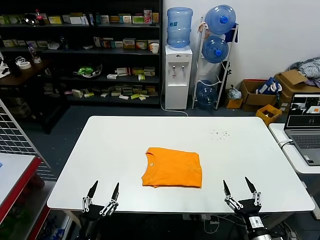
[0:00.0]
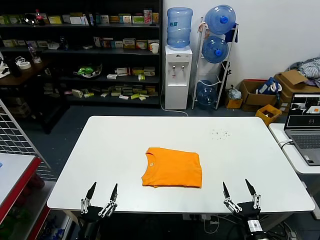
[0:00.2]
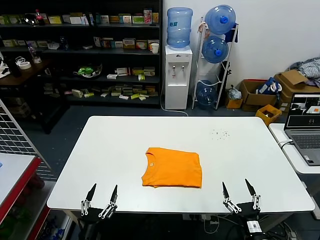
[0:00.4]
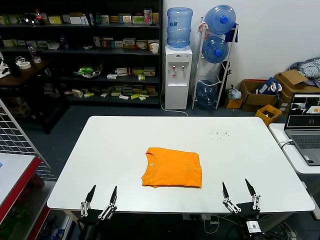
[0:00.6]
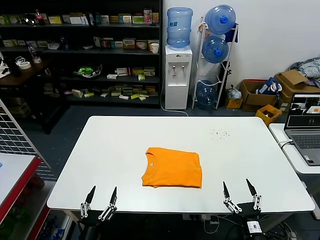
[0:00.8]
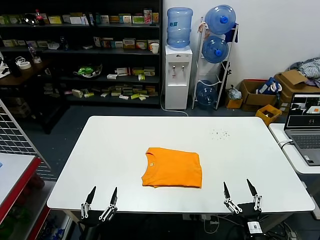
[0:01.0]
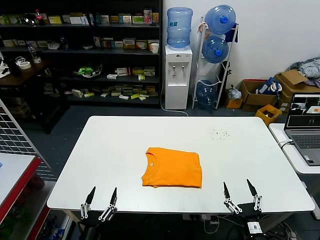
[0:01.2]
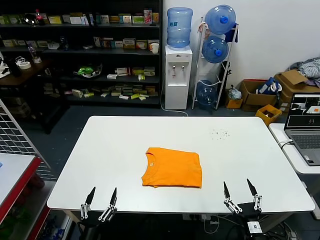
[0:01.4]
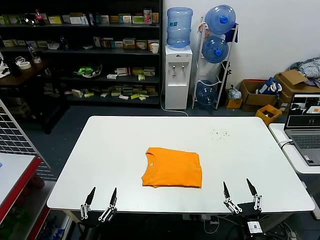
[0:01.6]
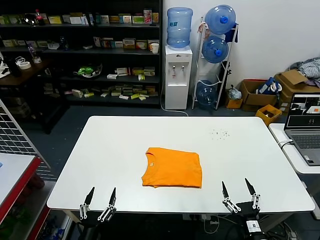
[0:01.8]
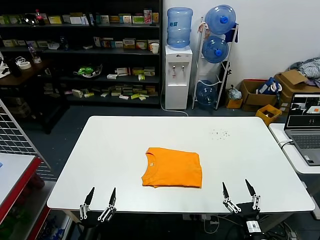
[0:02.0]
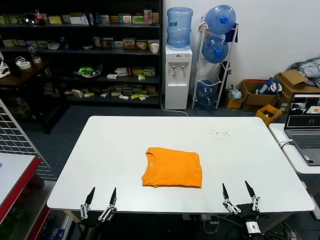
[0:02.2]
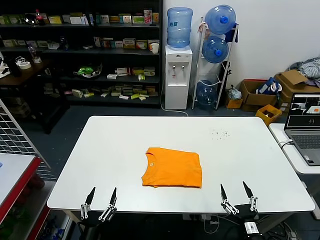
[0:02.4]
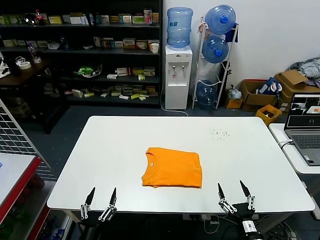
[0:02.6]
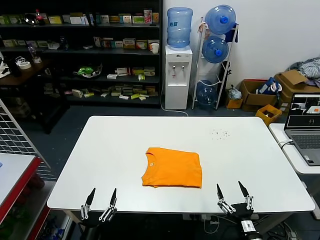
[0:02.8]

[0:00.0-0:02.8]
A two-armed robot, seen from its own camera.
Task of the whole recording: fold and organize the clothes.
0:00.0 to 0:02.8: The grippers move only a little.

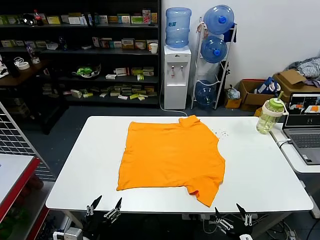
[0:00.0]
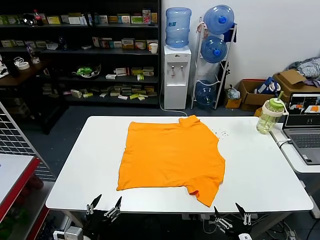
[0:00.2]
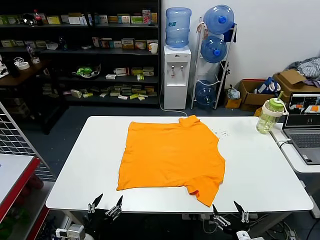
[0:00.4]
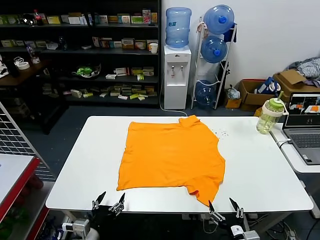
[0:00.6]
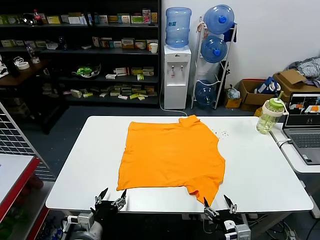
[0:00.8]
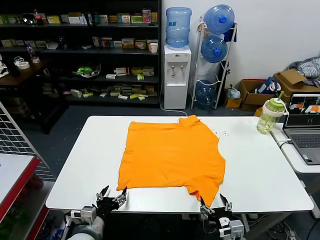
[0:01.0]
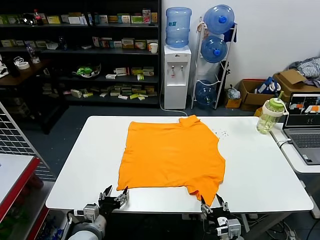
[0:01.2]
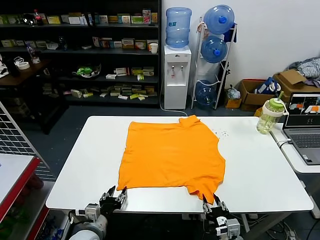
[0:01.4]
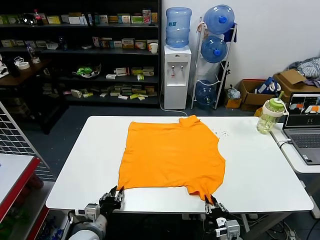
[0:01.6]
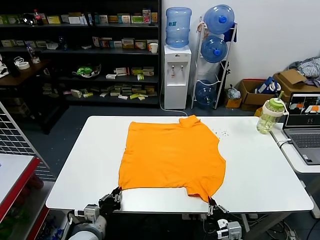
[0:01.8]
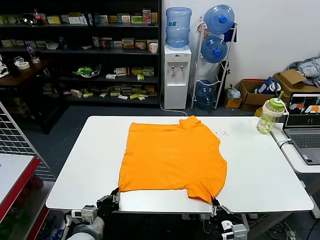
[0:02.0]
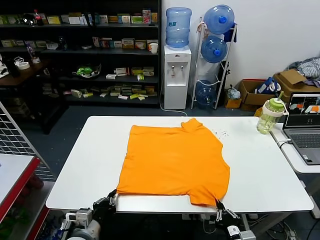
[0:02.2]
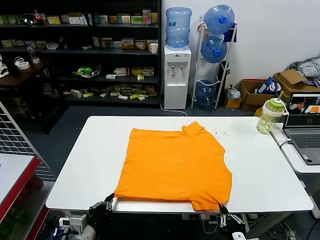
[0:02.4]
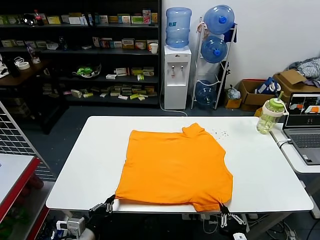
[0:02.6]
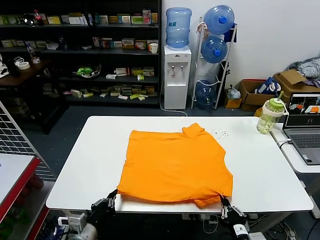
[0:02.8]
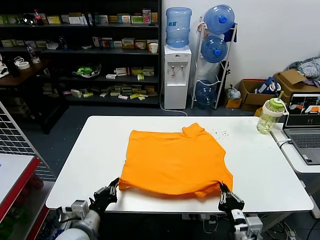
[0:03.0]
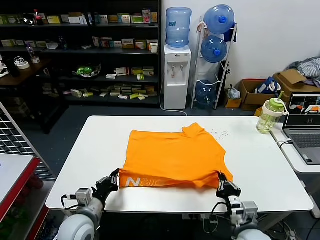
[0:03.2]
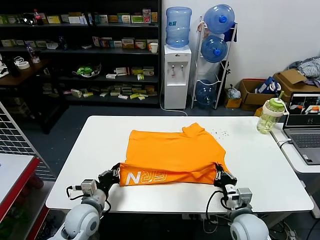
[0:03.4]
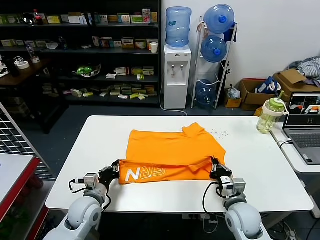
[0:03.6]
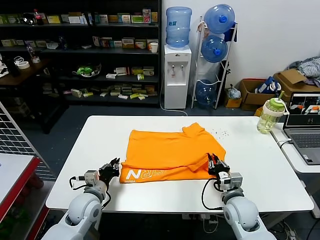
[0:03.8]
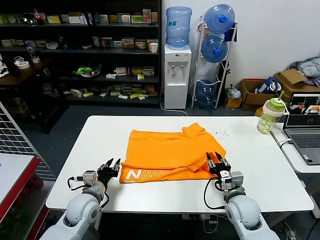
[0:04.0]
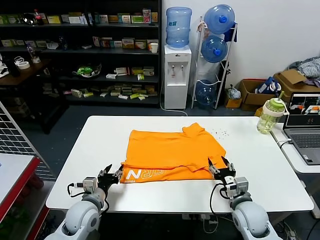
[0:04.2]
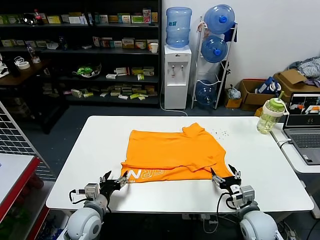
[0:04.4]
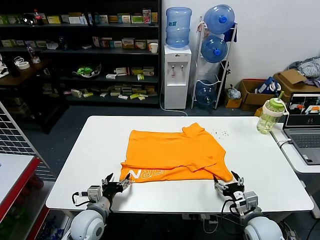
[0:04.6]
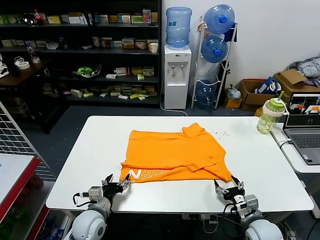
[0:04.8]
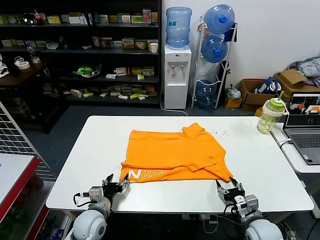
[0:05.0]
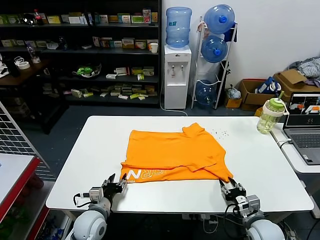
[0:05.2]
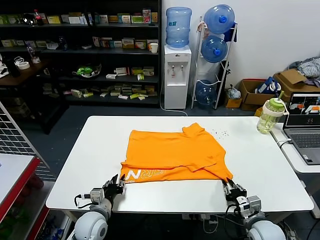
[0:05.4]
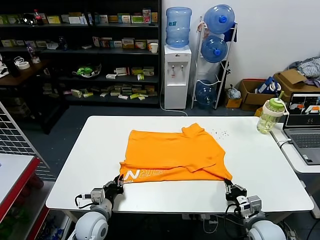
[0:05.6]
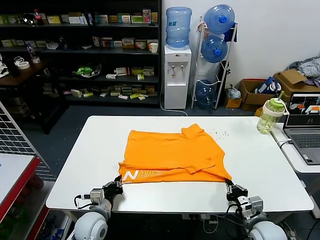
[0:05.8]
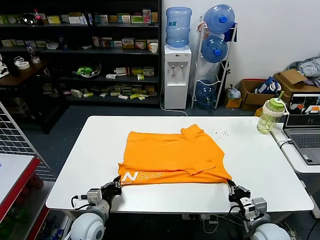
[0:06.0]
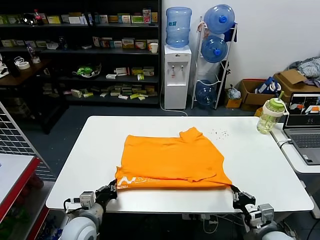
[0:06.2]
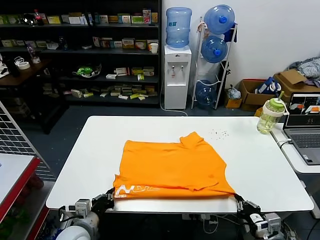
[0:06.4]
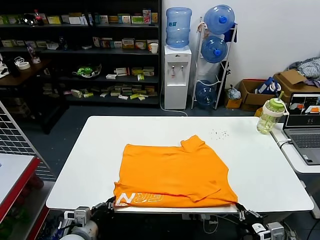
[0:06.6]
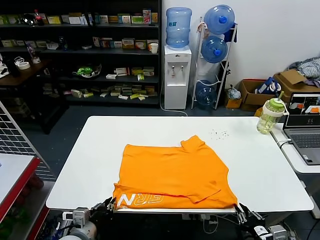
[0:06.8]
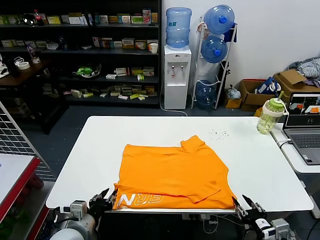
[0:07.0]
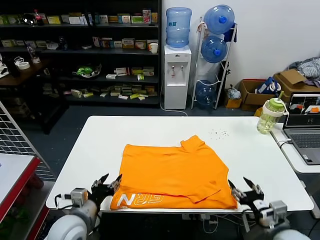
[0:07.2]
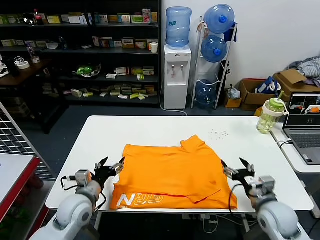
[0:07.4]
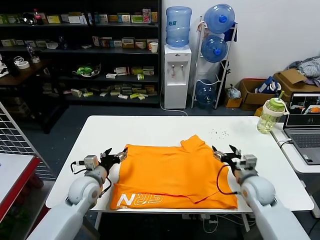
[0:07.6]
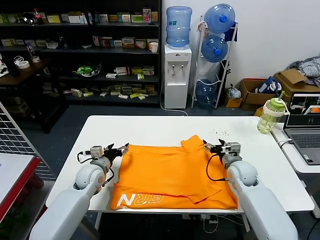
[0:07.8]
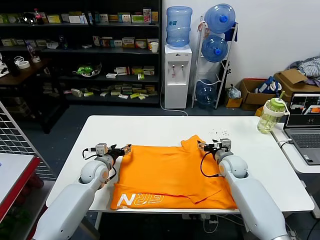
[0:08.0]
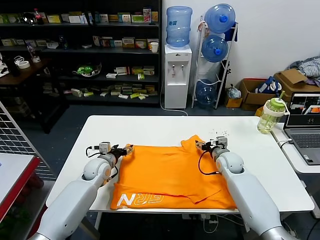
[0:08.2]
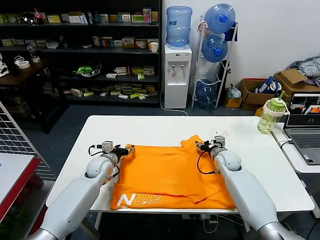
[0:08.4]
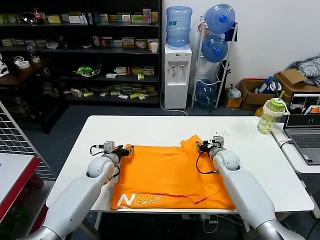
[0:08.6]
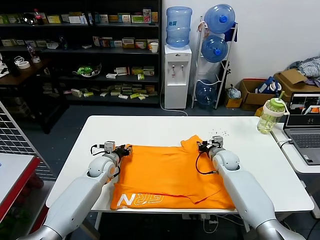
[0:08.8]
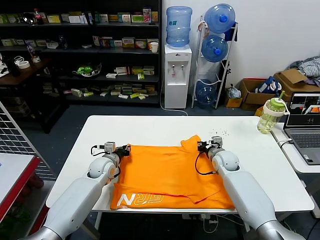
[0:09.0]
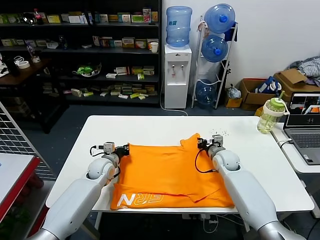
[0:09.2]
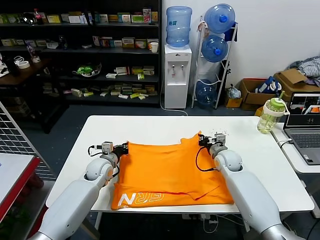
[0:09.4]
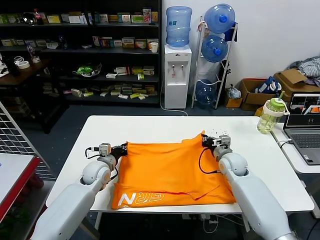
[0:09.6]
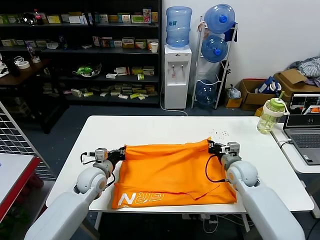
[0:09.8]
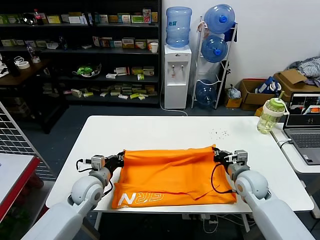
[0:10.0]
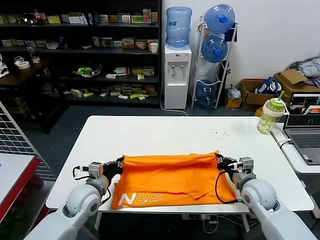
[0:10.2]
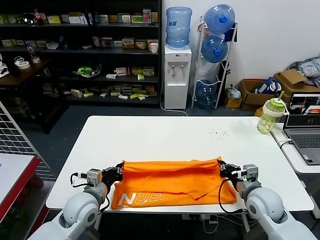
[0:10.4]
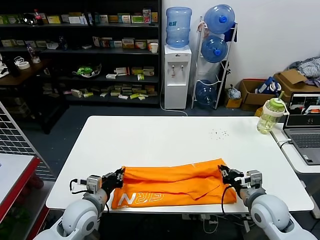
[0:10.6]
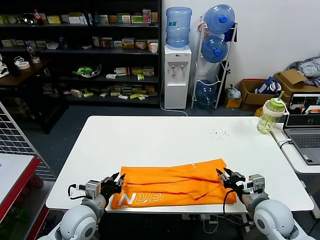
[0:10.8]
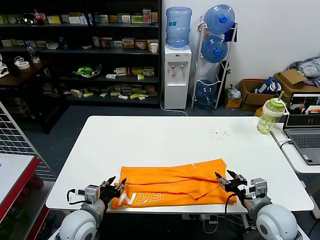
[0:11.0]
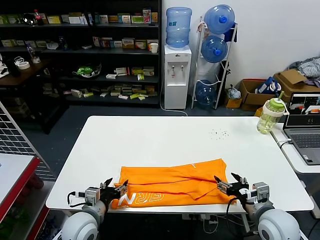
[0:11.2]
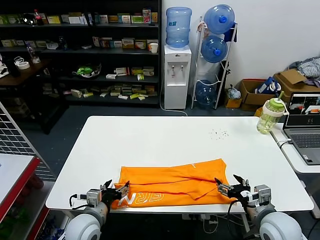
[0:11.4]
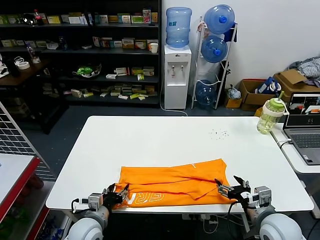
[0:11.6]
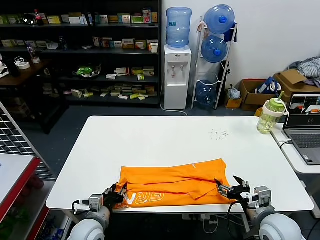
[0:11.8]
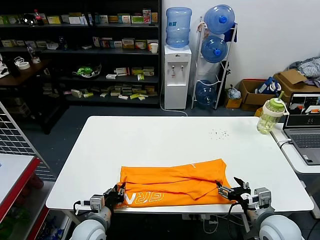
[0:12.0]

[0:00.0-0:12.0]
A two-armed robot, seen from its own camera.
Task of the whole recording: fold and organize the clothes.
Step, 0:00.0 to 0:01.8: use both grippers simultaneously to clamp the lower edge of the clothing fabric.
Step, 0:02.0 to 0:04.0: use both grippers to drag the lower edge of the fabric forward and fold it over the upper edge.
Step, 0:04.2 to 0:06.8: Drag the clothes downward with both gripper.
Step, 0:07.0 to 0:09.0: use both grippers simultaneously to clamp the upper edge of the clothing fabric.
Step, 0:09.4 to 0:10.6: use both grippers to drag the upper edge of the fabric backward and fold it over the lower edge.
0:01.6 to 0:03.0: Both grippers move upward, about 5 cm. The left gripper closes up. The right gripper travels backward and back again, about 5 cm each way.
0:03.0 to 0:04.4: The left gripper travels forward by about 5 cm, and opens its fingers; the right gripper goes approximately 10 cm forward and to the right, and opens up.
0:04.4 to 0:06.0: The left gripper closes. The right gripper closes up.
0:06.0 to 0:07.6: The right gripper moves forward, approximately 15 cm, and opens its fingers. Meanwhile the left gripper shifts some 10 cm forward and upward, and opens up.
0:07.6 to 0:09.0: Both grippers travel together forward, about 10 cm. The right gripper closes its fingers. Meanwhile the left gripper closes up.
0:09.0 to 0:10.4: Both grippers travel together backward, some 20 cm.
0:10.4 to 0:12.0: The left gripper heads downward and backward, covering roughly 10 cm, and opens, then closes again; the right gripper travels backward by roughly 10 cm, and opens its fingers.

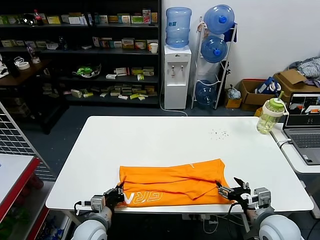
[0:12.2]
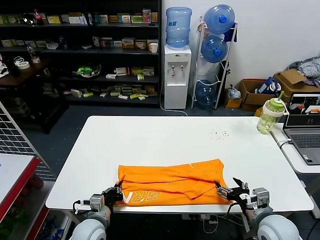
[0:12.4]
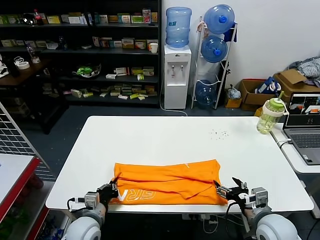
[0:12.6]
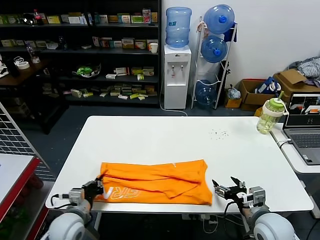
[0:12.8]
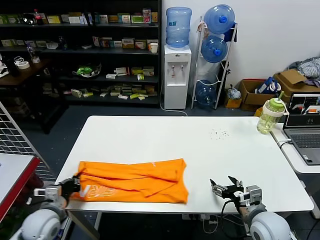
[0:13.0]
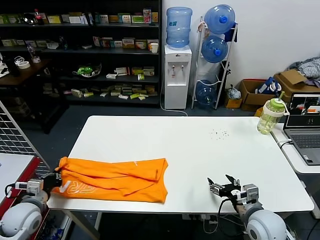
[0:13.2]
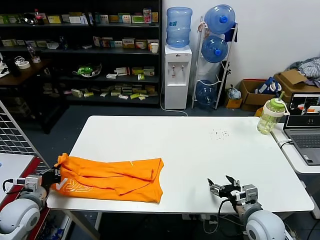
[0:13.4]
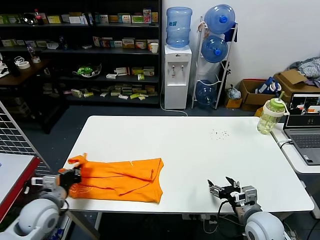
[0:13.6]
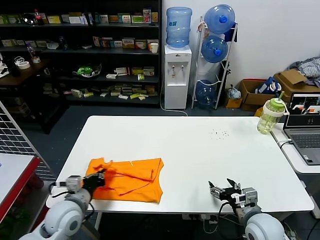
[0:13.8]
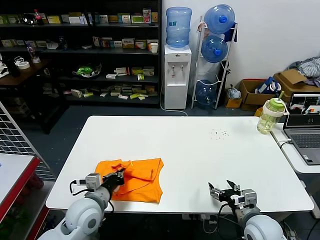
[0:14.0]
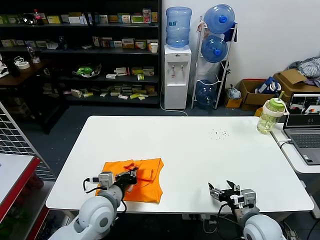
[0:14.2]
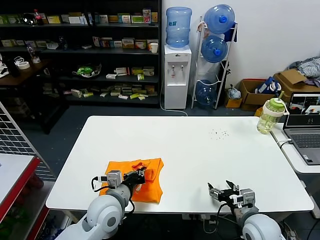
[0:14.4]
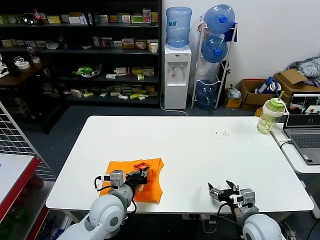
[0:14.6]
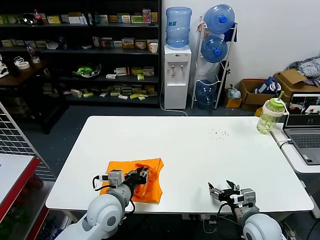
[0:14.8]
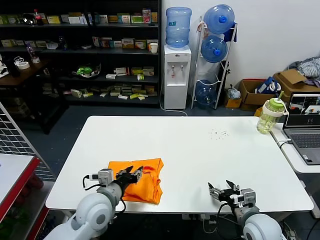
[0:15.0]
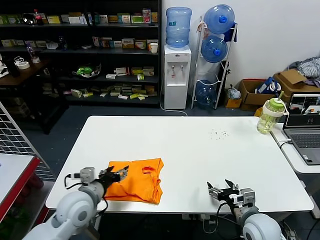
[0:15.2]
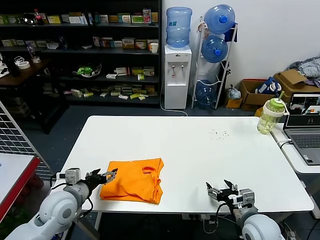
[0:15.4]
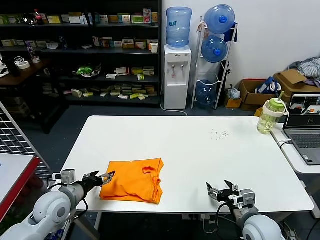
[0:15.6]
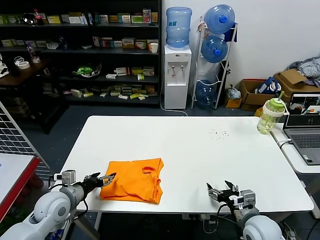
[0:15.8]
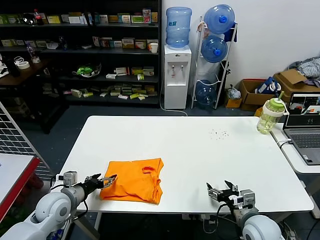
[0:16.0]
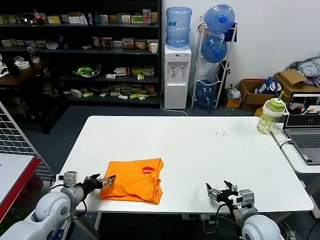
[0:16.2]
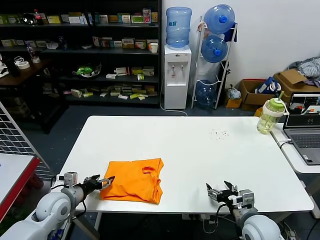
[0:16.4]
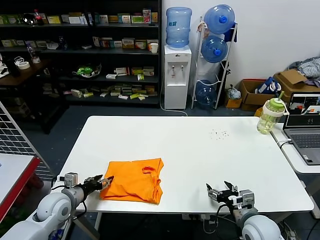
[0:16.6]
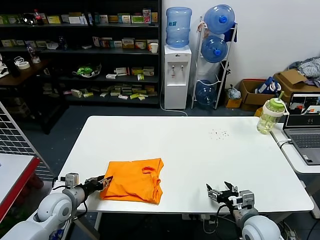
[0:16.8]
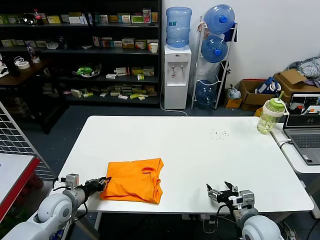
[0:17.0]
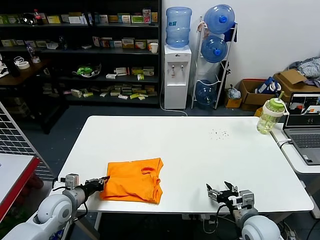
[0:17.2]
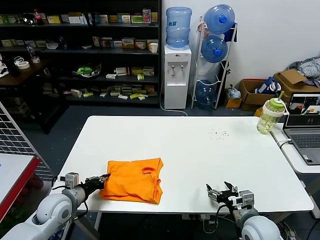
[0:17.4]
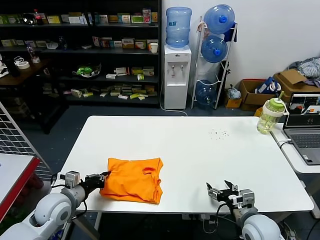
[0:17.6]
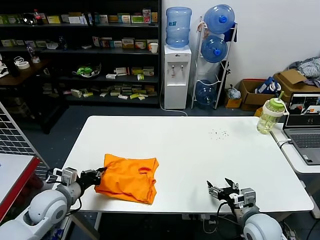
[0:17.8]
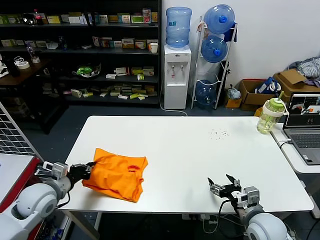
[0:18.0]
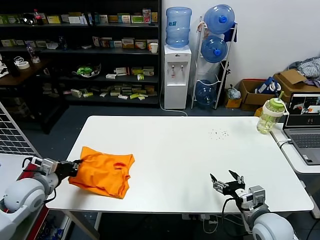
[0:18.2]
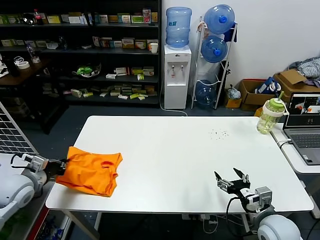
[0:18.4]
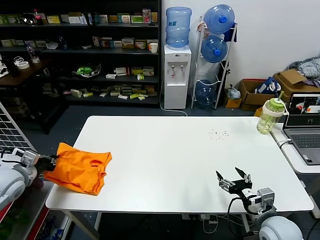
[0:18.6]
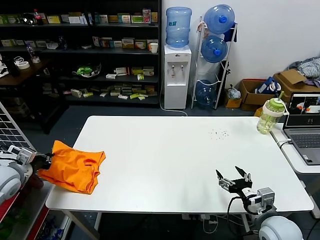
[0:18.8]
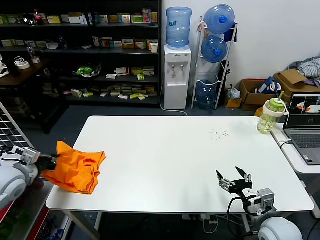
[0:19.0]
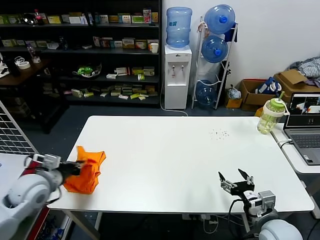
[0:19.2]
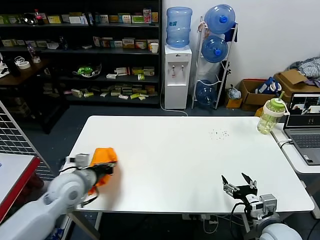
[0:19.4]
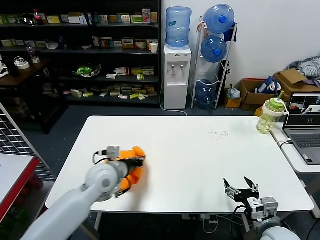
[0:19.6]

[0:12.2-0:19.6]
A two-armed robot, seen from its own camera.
Task of the whole recording: fold and organize the clothes.
Step, 0:12.4 to 0:14.8: use the left gripper to drag the left edge of the fabric to the left and folds it over the right edge.
0:12.2 to 0:13.6: The left gripper goes some 15 cm to the left and upward.
0:13.6 to 0:15.2: The left gripper goes roughly 15 cm to the right, and opens its fingers.
0:15.2 to 0:16.6: The left gripper moves to the left and downward, some 15 cm.
0:16.6 to 0:18.2: The left gripper moves upward, approximately 10 cm, and closes.
0:18.2 to 0:19.6: The left gripper heads to the right, covering about 20 cm.
